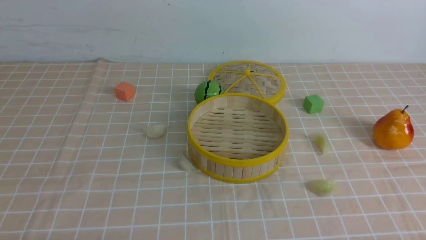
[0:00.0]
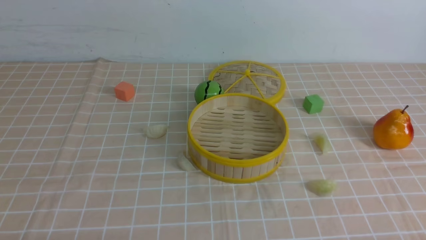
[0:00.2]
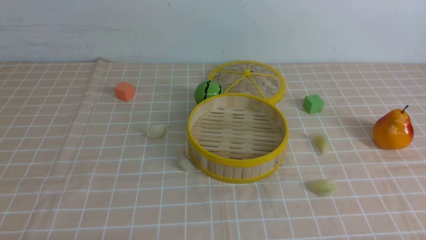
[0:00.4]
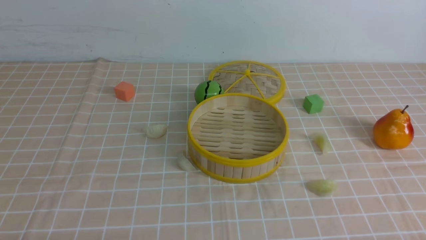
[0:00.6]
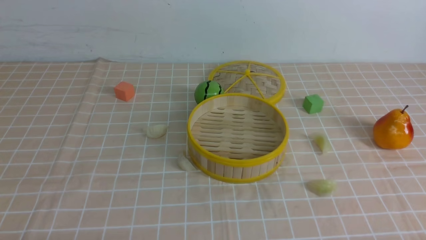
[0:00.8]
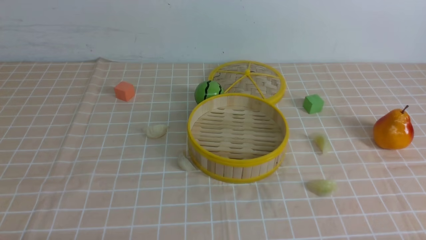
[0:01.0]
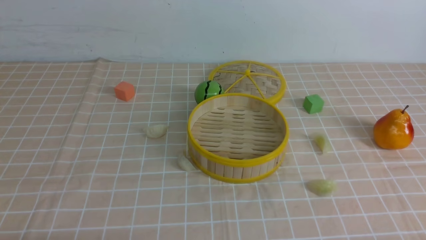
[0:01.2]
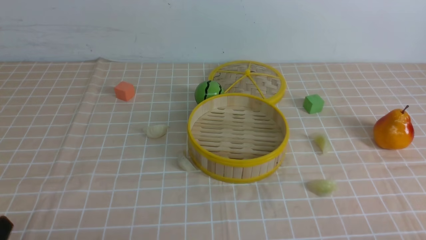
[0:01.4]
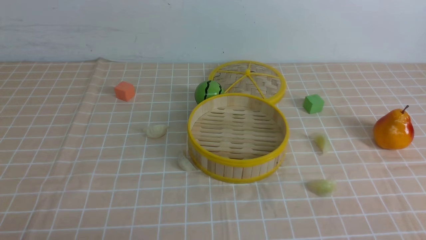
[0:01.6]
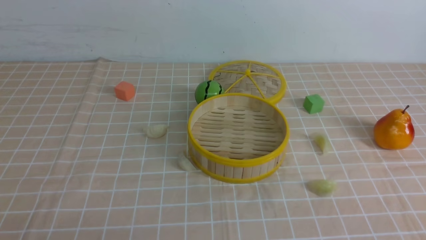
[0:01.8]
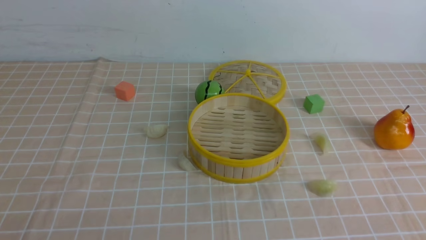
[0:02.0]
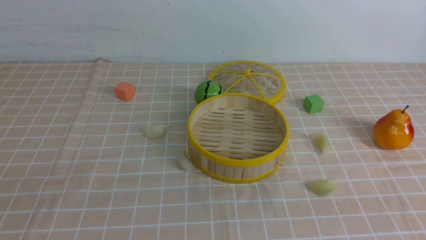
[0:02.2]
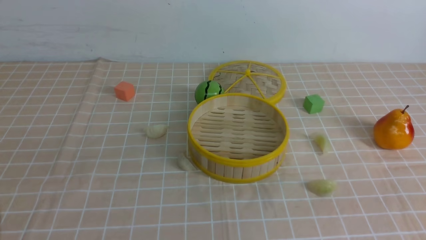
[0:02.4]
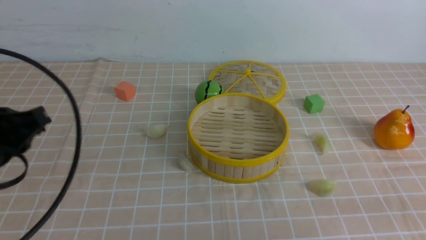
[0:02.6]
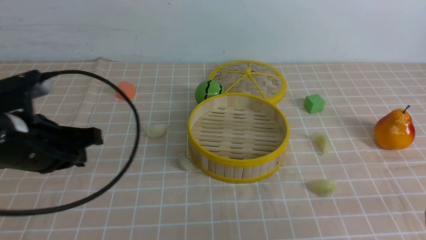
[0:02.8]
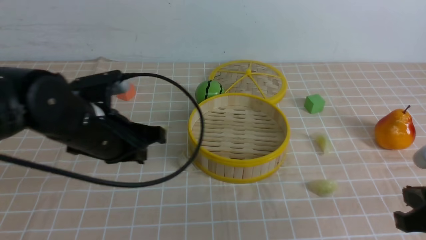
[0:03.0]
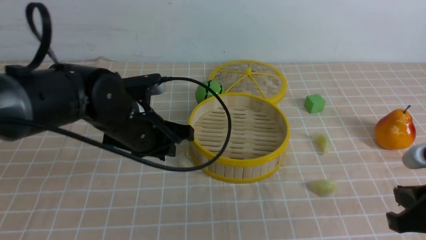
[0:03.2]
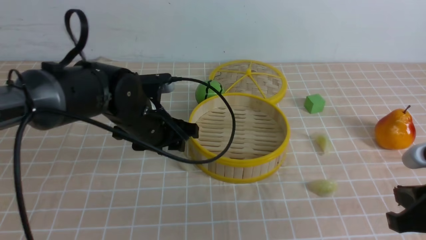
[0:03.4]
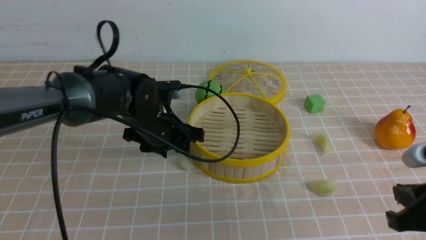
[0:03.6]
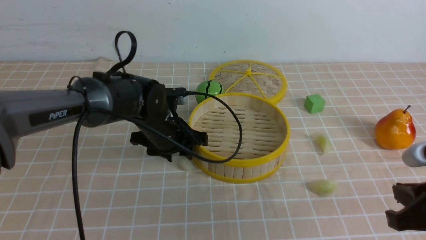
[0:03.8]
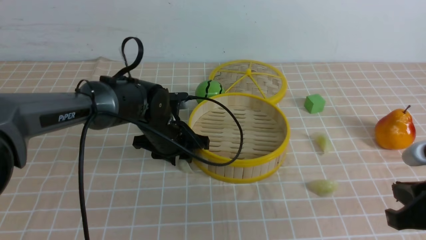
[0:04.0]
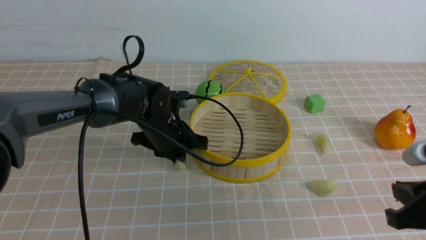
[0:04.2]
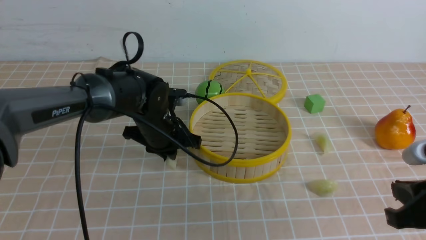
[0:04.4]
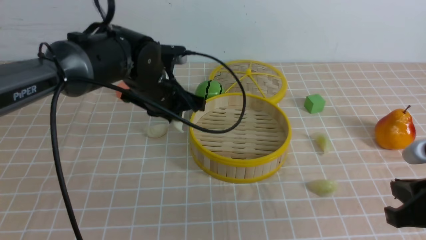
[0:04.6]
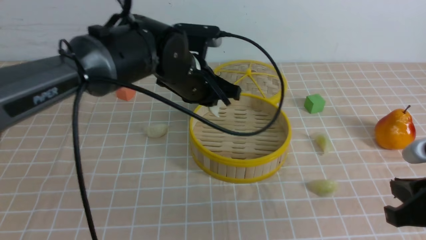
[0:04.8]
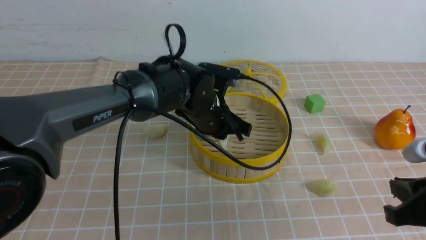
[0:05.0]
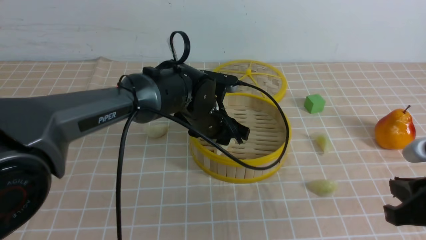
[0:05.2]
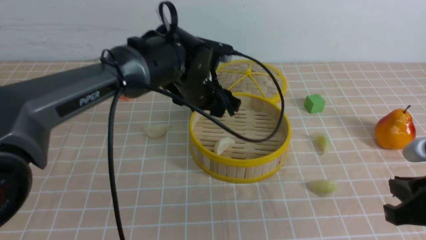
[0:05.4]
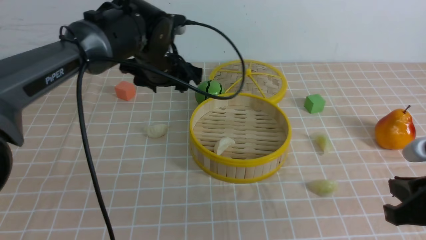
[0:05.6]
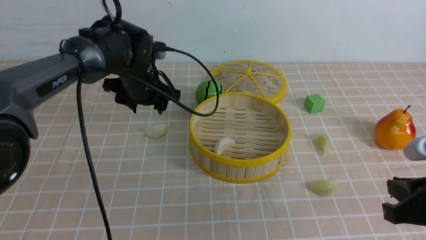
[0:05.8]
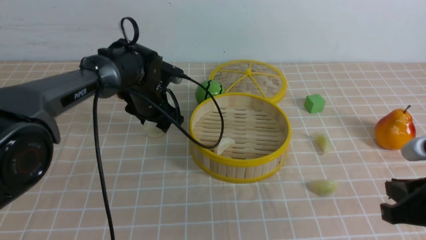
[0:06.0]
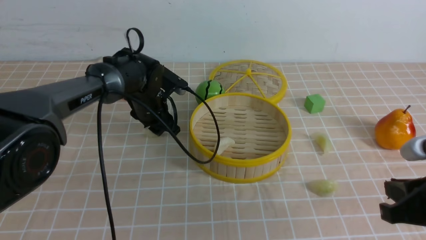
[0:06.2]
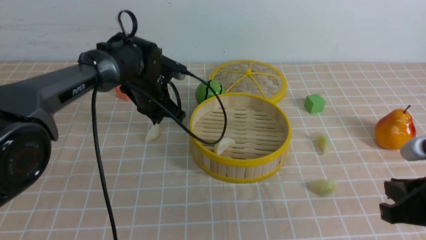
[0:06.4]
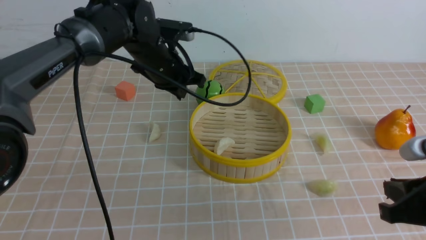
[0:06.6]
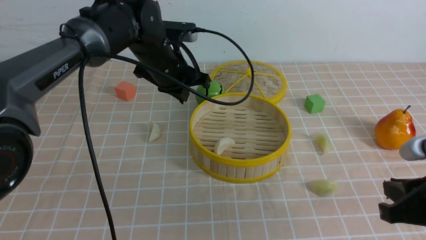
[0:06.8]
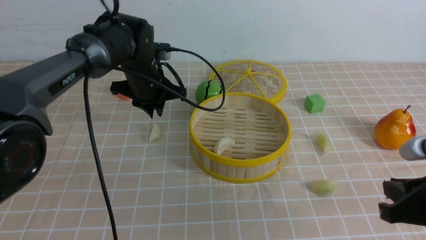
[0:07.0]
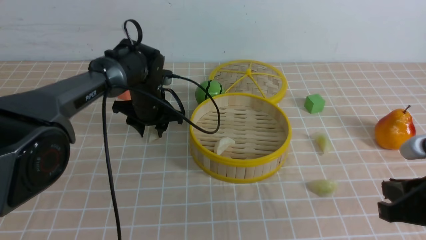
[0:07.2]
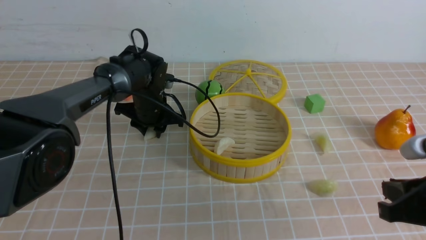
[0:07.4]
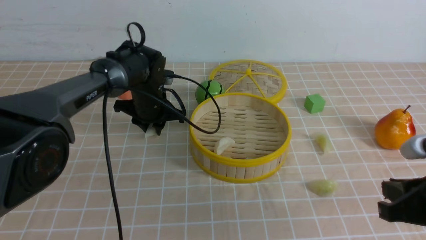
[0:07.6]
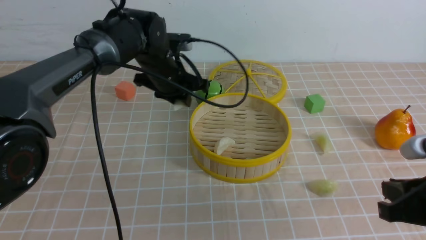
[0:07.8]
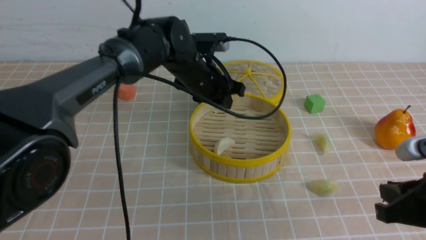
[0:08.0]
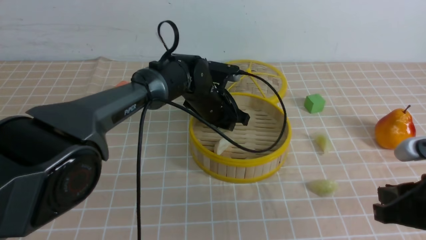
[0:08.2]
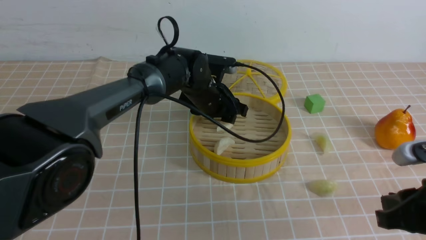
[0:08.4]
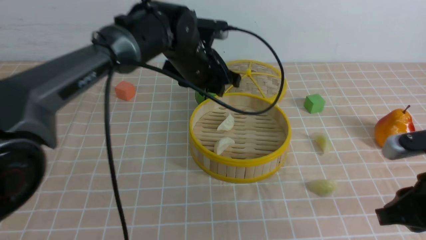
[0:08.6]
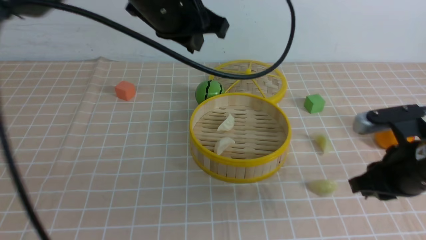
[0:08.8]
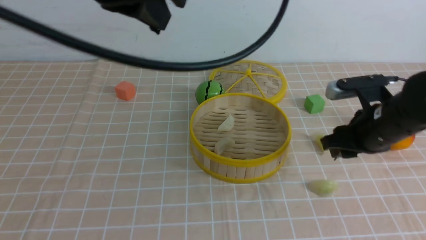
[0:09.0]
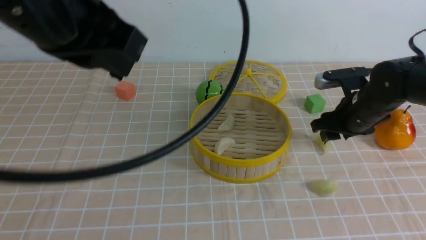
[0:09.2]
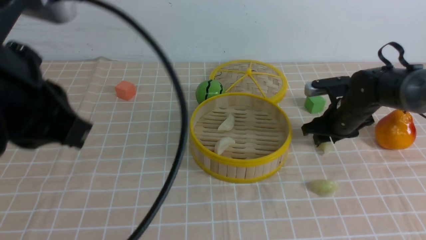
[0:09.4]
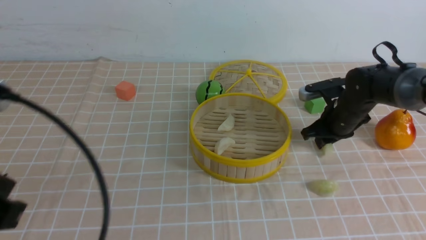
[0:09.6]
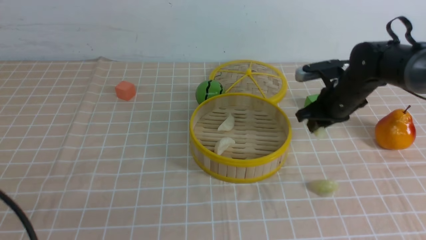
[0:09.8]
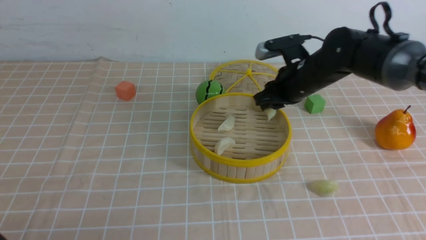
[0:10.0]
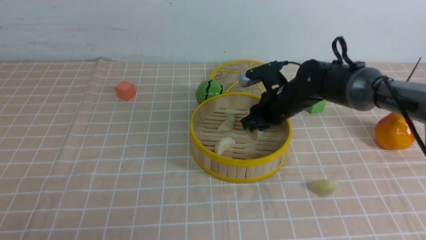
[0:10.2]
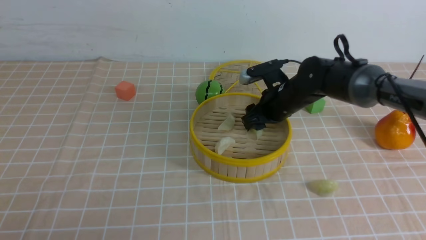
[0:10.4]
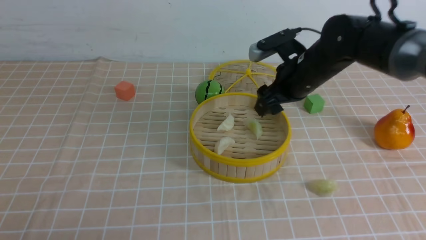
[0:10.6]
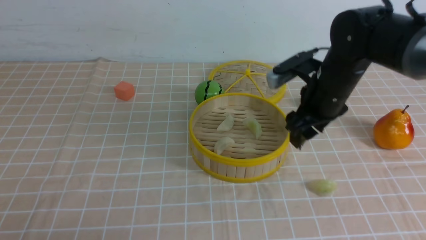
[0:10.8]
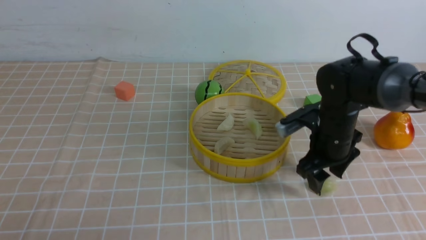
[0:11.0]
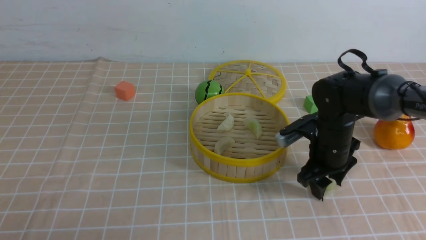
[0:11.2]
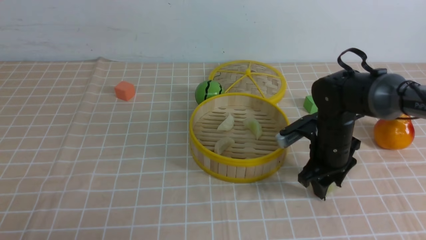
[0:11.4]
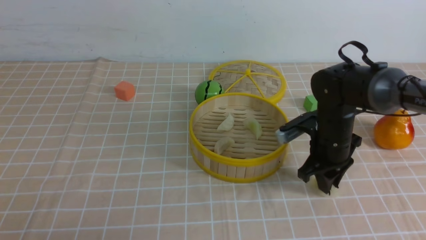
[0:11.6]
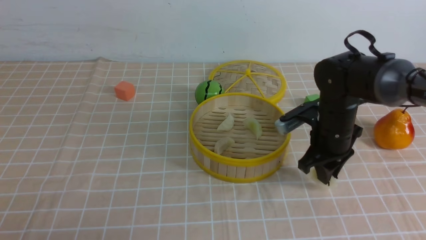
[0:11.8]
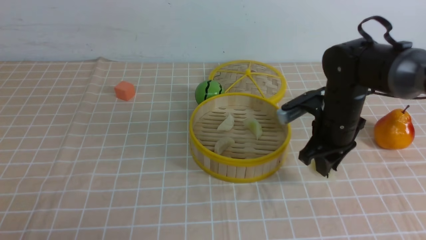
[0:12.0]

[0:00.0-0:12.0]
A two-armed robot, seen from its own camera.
Task of the whole recording: put the dumplings into the steamer on the table with the brown tablecloth.
Step, 0:00.0 to 0:04.2: use the left arm to grab a dumpling.
Step, 0:04.4 to 0:05.4: use the left arm to put the dumpling into the steamer.
Step, 0:05.6 to 0:07.4: use the left arm to grab a dumpling.
Step, 0:07.6 to 0:08.4: use the left arm to put the dumpling into the steamer.
Step, 0:08.8 to 0:09.4: use the right arm to grab a dumpling.
Step, 0:09.6 to 0:10.4: use the right arm to put the dumpling into the steamer.
Step, 0:10.8 to 0:11.4: use the right arm to grab a dumpling.
0:01.6 to 0:03.0: The left gripper heads forward and to the right, covering some 25 cm. The right gripper is displaced forward by about 10 cm, and closes up.
0:03.0 to 0:04.4: The left gripper shifts some 15 cm forward, to the right and downward, and opens and closes again.
0:04.4 to 0:06.0: The left gripper shifts approximately 10 cm forward, reaches approximately 5 cm to the right, then returns, and opens its fingers.
0:06.0 to 0:07.6: The left gripper moves roughly 5 cm upward and comes back, and closes up.
0:07.6 to 0:09.0: The right gripper heads forward, covering about 15 cm, and opens. The left gripper shifts roughly 35 cm upward and backward, and closes its fingers.
0:09.0 to 0:10.4: The right gripper shifts roughly 15 cm forward and to the left. The left gripper goes some 35 cm backward, downward and to the left.
0:10.4 to 0:12.0: The right gripper shifts roughly 5 cm backward, reaches about 5 cm downward, then returns, and closes up.

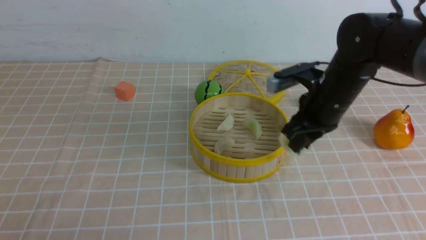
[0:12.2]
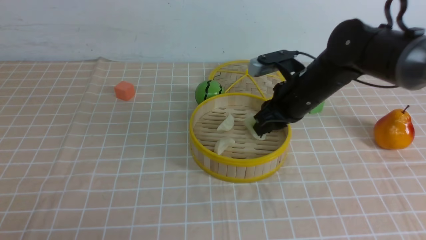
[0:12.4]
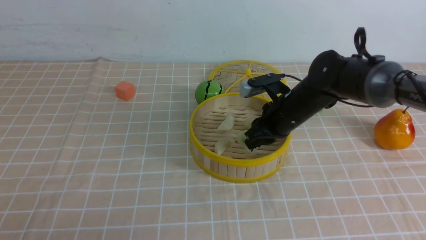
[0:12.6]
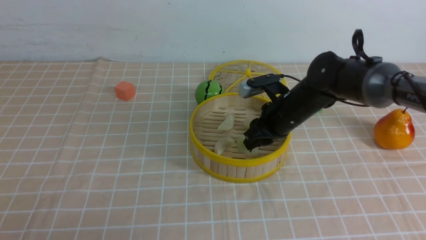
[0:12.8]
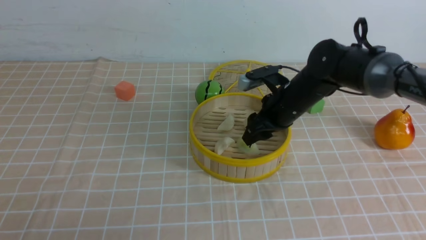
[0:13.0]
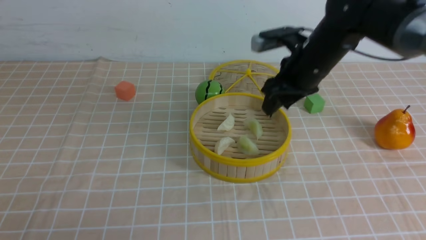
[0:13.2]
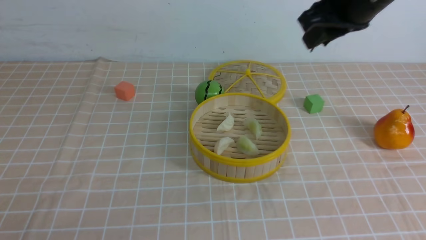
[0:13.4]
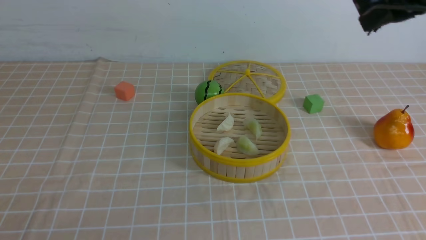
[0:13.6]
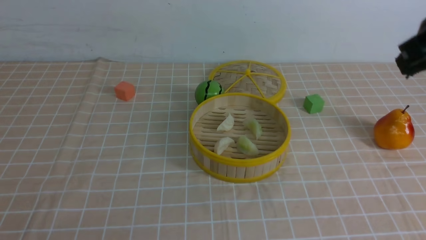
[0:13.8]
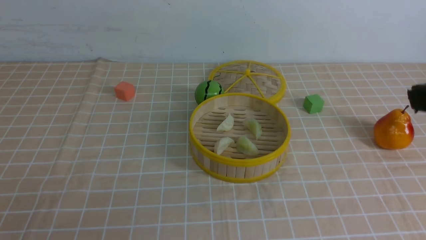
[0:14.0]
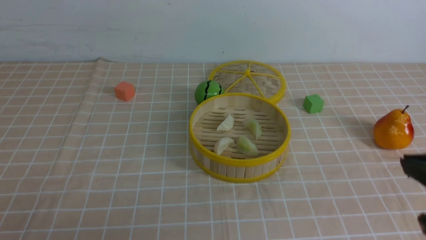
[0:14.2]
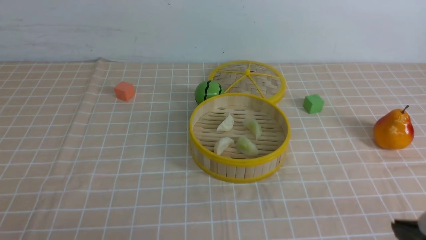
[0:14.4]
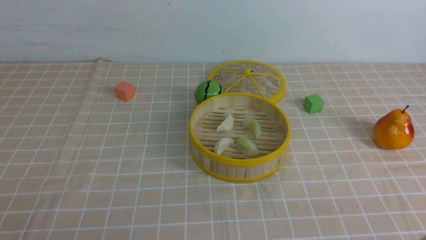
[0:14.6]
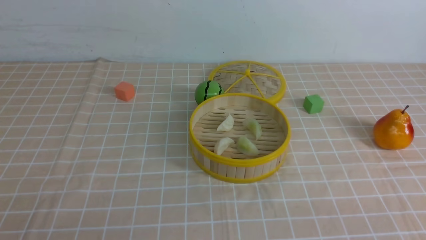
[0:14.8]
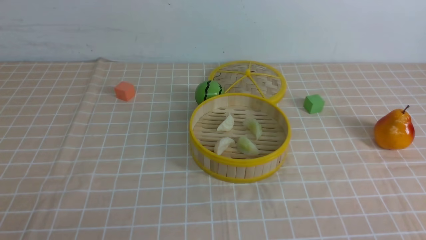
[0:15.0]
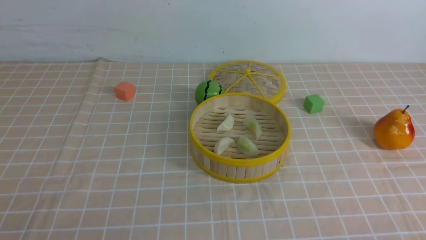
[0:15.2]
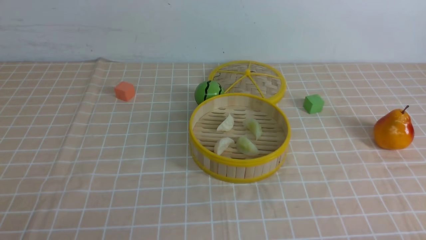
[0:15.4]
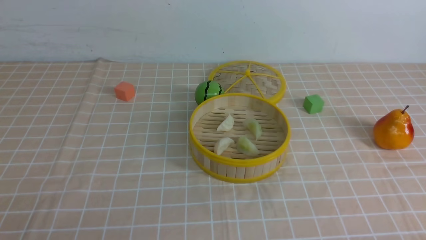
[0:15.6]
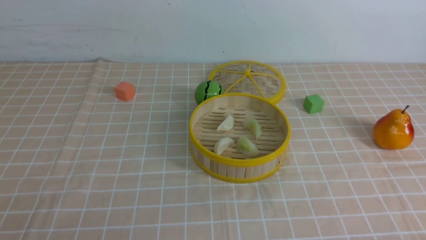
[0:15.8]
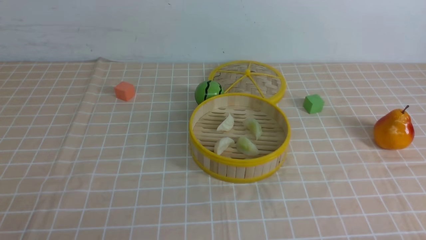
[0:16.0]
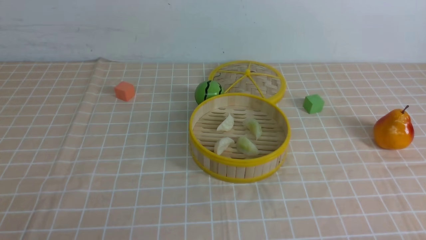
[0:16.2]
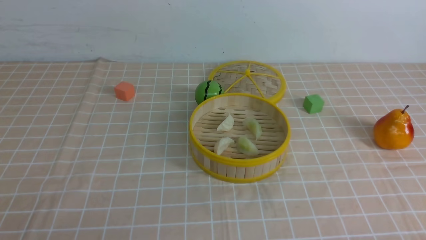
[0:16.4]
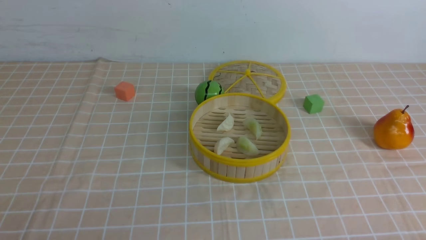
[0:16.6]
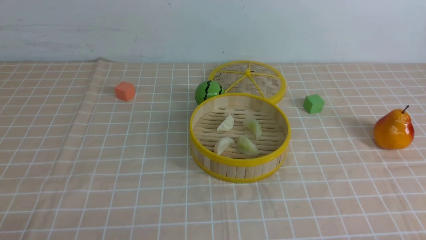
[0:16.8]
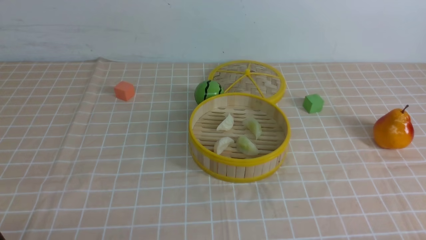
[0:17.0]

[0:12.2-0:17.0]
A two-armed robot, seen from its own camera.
Task of the whole recording: put the dumplings into the steamer on the table with the brown tablecloth.
Step, 0:12.2 to 0:13.0: use the right arm to put the dumpling into the steamer.
0:12.2 to 0:13.8: The right gripper travels upward and backward by some 25 cm, and opens, then closes again.
0:13.8 to 0:15.4: The right gripper heads downward and backward, covering roughly 30 cm.
